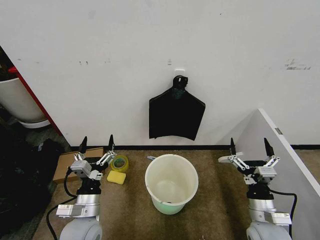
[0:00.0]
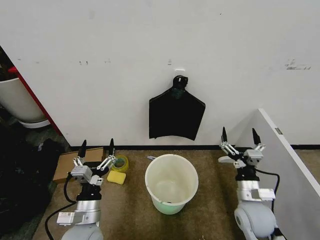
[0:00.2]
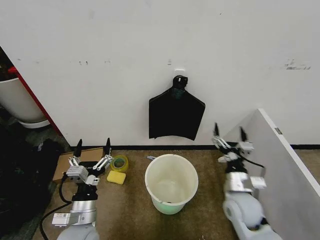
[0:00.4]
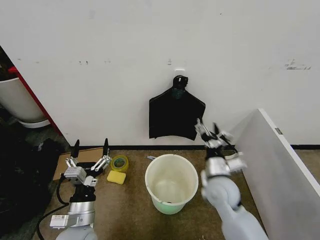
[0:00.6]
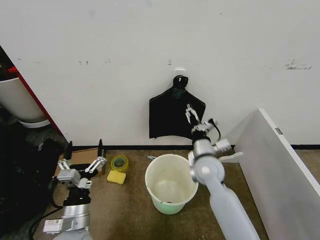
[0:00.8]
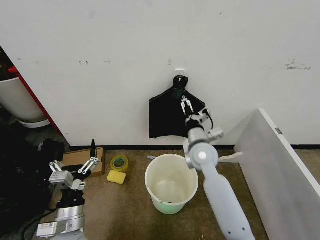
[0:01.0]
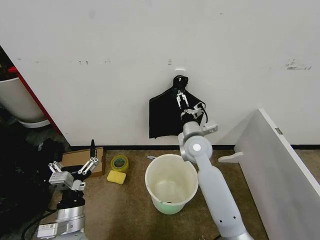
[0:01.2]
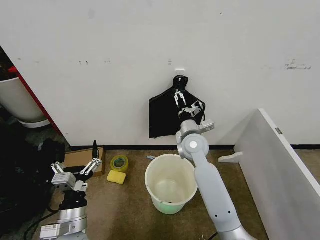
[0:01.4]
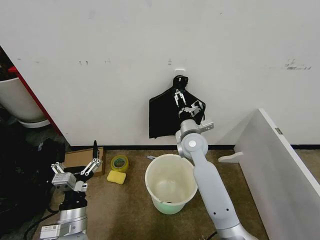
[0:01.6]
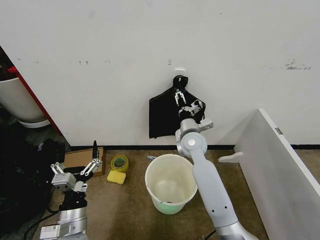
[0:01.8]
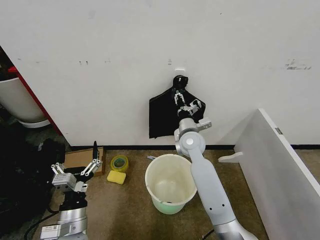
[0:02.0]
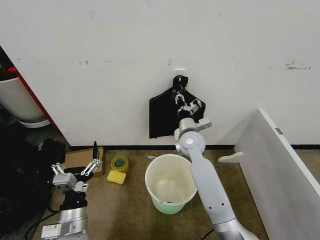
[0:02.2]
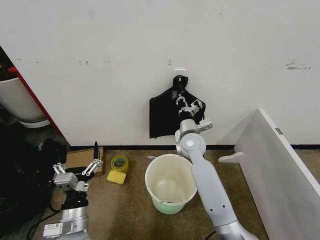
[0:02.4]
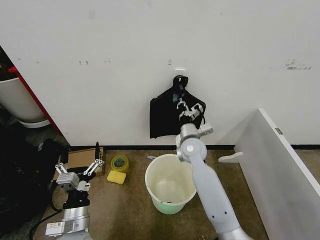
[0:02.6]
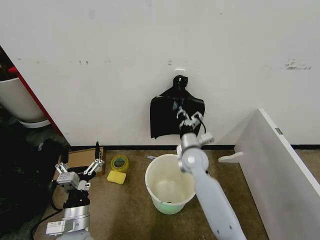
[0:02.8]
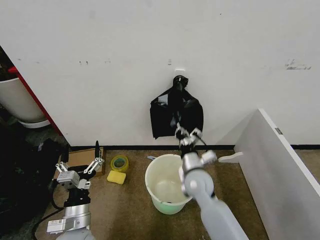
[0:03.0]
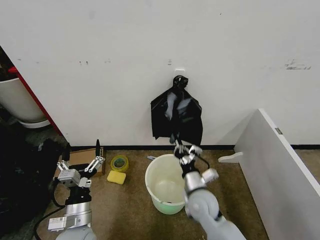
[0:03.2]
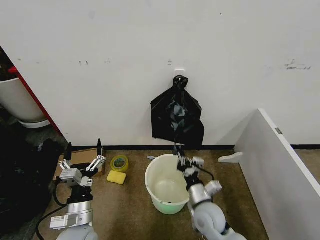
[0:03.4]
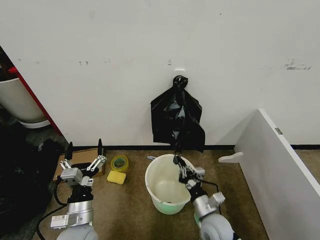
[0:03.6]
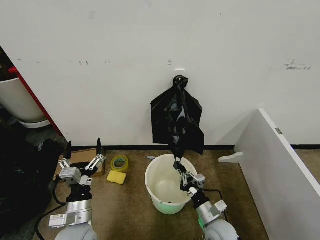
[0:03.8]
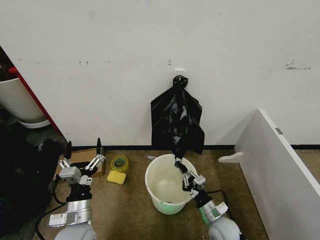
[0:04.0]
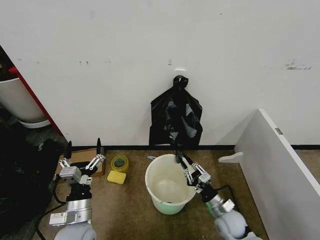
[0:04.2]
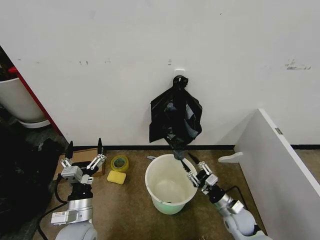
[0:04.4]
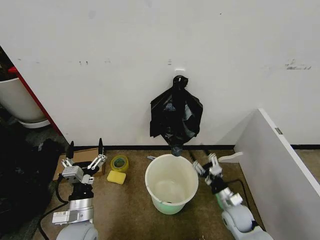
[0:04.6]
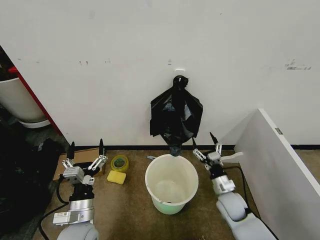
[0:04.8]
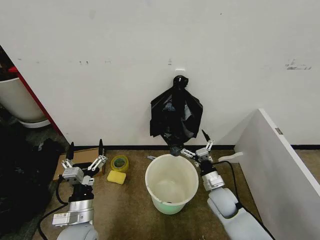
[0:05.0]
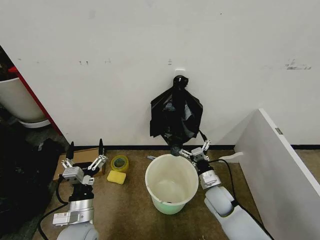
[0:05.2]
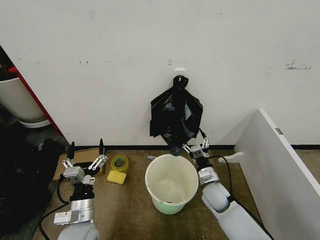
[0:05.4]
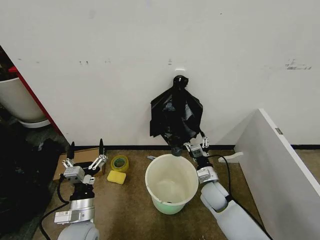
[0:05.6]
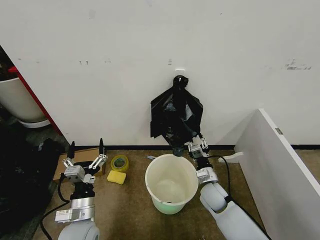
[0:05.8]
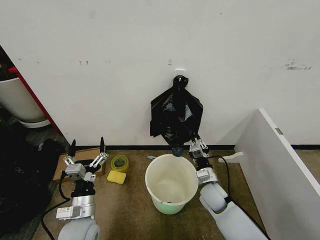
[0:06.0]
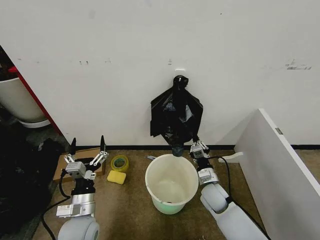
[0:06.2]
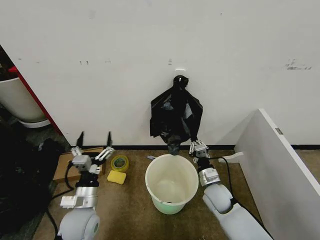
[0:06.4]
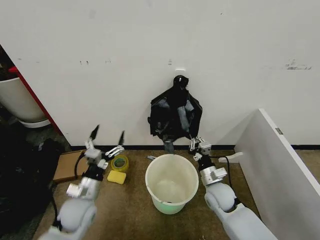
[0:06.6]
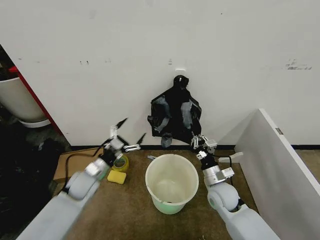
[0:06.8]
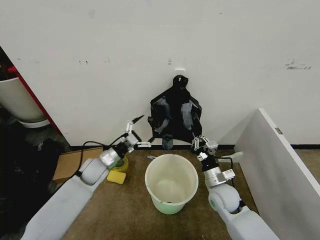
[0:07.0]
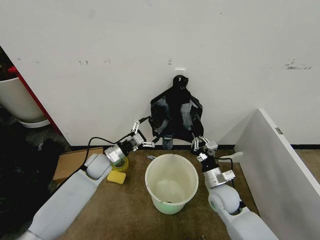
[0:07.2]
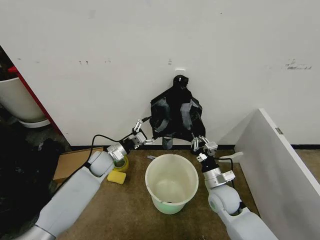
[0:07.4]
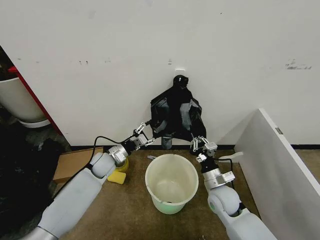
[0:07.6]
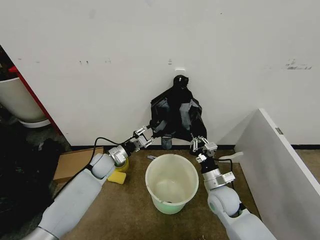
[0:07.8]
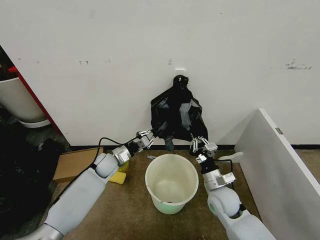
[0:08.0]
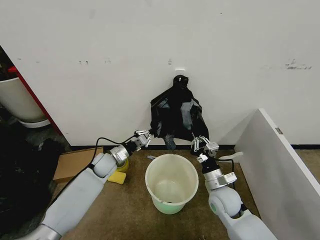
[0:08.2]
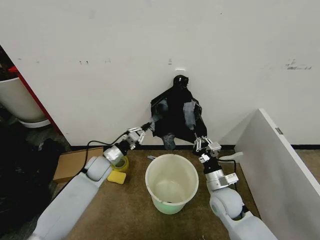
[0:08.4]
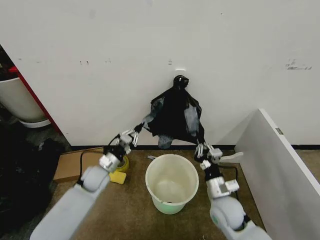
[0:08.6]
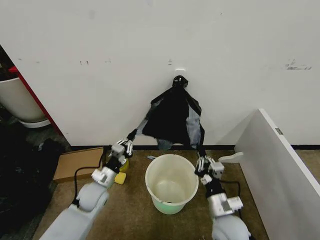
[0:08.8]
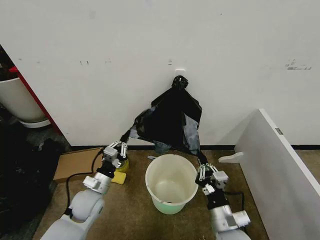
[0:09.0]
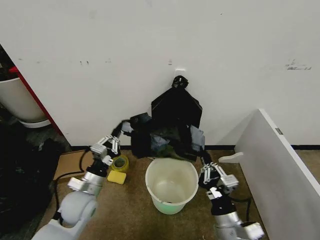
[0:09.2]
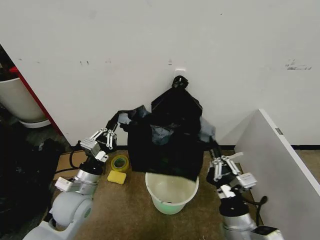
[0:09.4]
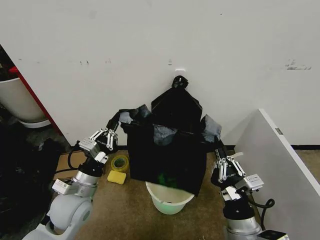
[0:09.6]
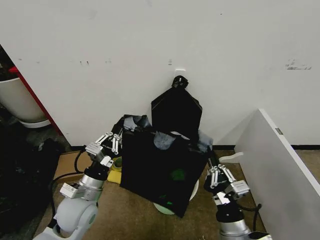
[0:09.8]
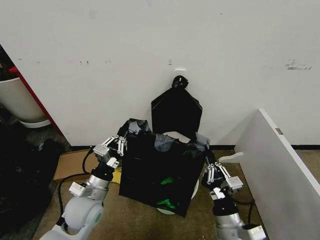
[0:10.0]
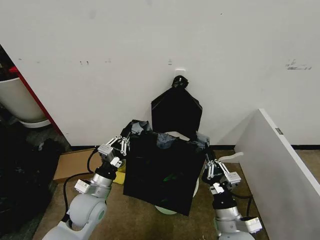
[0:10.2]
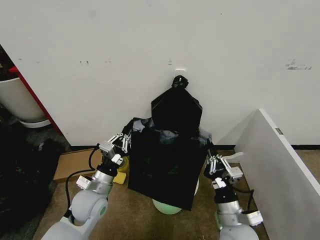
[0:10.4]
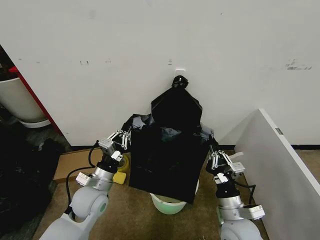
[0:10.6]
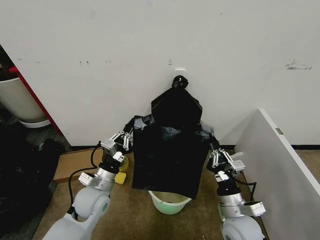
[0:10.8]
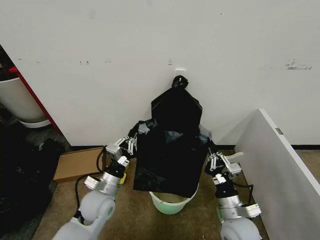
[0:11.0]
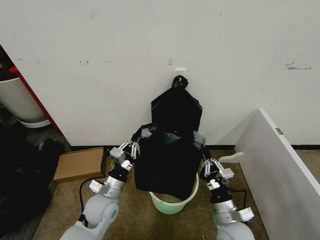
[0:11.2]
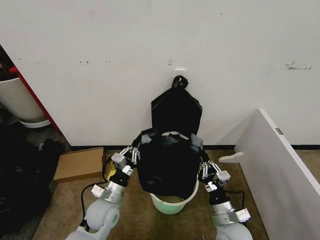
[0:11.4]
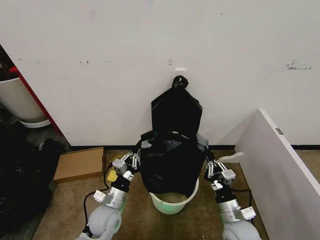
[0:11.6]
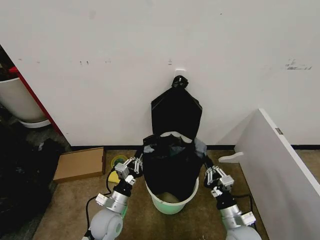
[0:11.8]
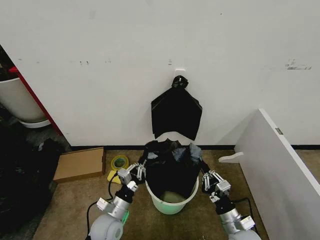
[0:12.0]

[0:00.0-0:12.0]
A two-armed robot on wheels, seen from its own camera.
Task of the whole recording: Place the garbage bag over the trash bin.
0:01.6 to 0:03.0: The right gripper shifts roughly 15 cm backward and downward, and closes its fingers.
0:03.0 to 0:04.4: The right gripper is displaced to the right, downward and backward by roughly 20 cm, and opens.
0:04.4 to 0:06.0: The right gripper shifts some 10 cm to the left and forward, and opens, then closes again.
0:06.0 to 0:07.6: The left gripper goes some 25 cm forward, and closes its fingers, while the right gripper shifts by some 5 cm.
0:07.6 to 0:09.0: The two grippers go some 15 cm backward. The left gripper closes.
0:09.0 to 0:10.4: The left gripper shifts approximately 5 cm upward. The right gripper travels upward and back again, roughly 10 cm each way.
0:10.4 to 0:12.0: The right gripper goes about 10 cm downward and to the right, while the left gripper shifts roughly 10 cm downward.

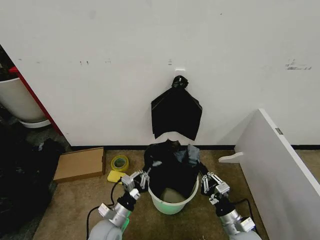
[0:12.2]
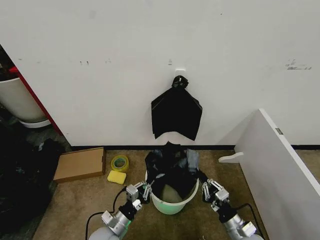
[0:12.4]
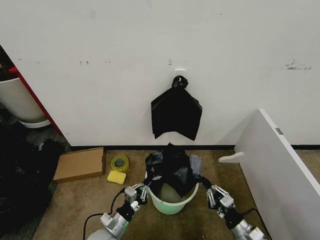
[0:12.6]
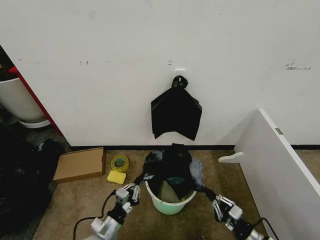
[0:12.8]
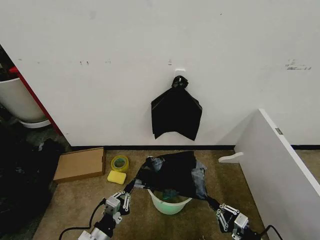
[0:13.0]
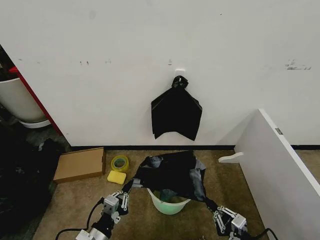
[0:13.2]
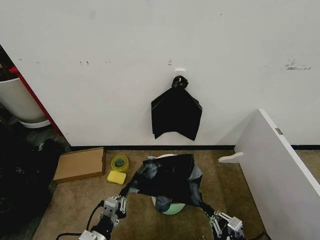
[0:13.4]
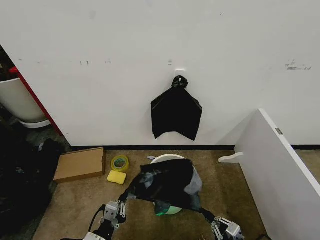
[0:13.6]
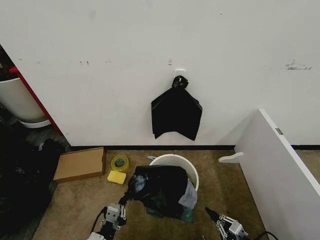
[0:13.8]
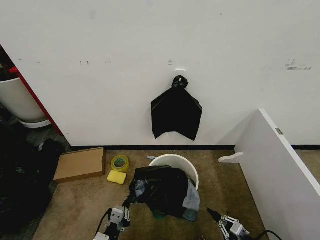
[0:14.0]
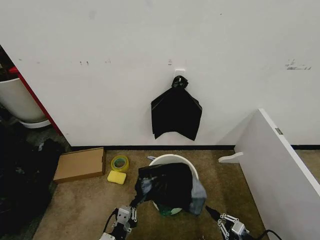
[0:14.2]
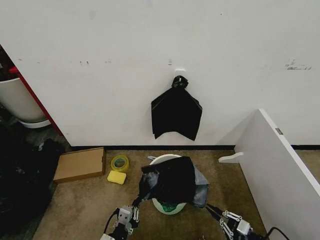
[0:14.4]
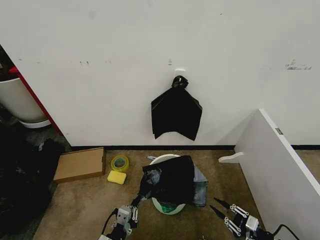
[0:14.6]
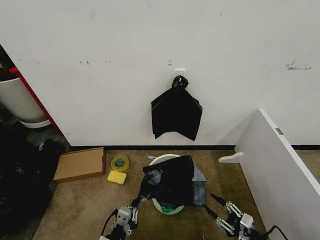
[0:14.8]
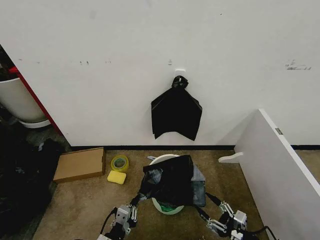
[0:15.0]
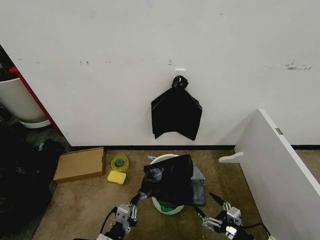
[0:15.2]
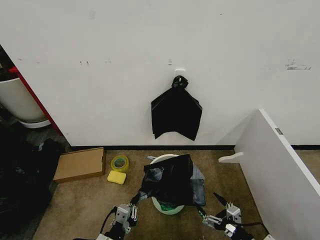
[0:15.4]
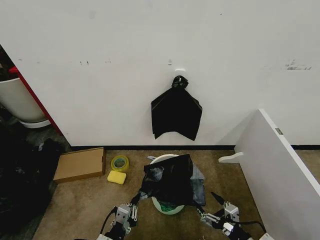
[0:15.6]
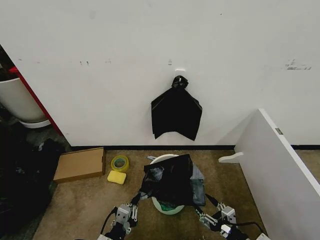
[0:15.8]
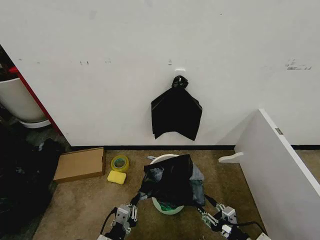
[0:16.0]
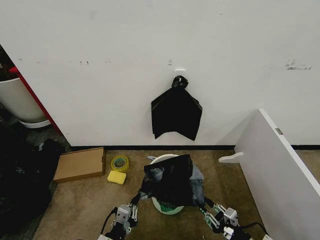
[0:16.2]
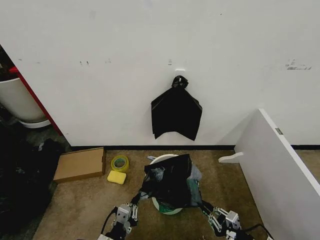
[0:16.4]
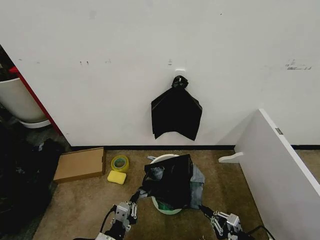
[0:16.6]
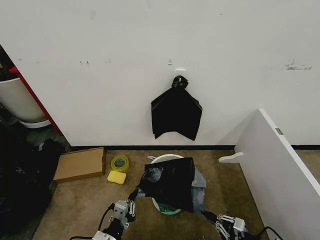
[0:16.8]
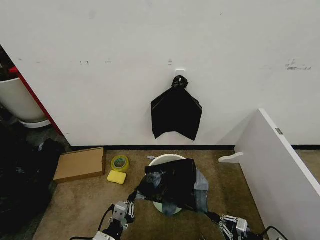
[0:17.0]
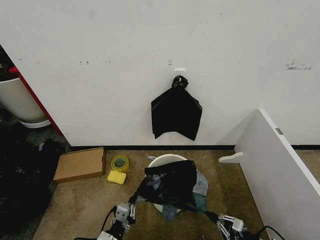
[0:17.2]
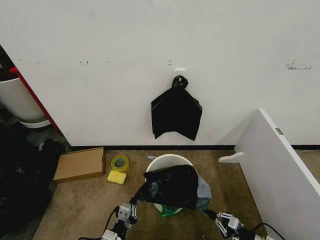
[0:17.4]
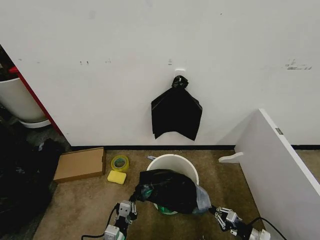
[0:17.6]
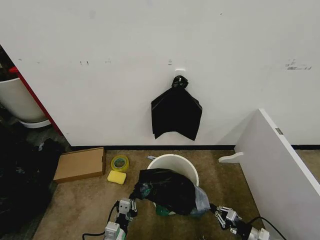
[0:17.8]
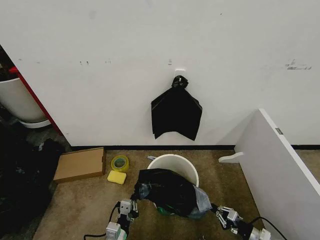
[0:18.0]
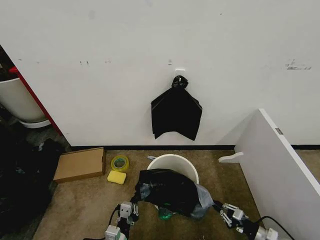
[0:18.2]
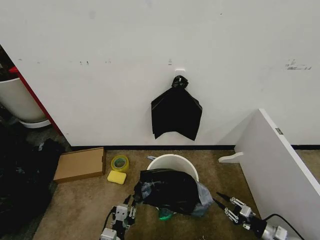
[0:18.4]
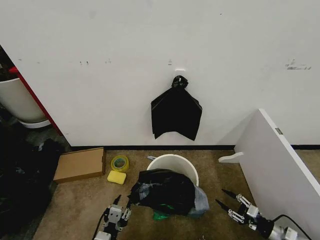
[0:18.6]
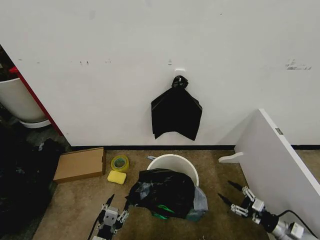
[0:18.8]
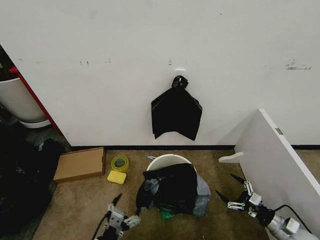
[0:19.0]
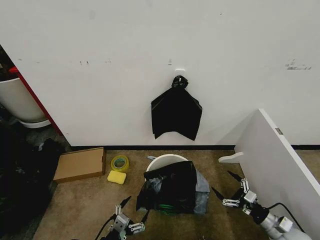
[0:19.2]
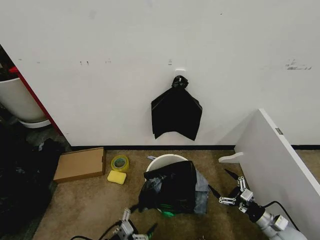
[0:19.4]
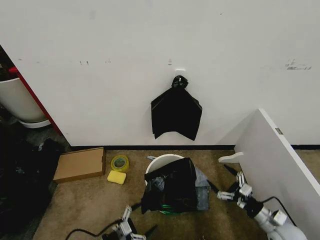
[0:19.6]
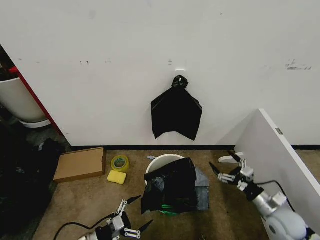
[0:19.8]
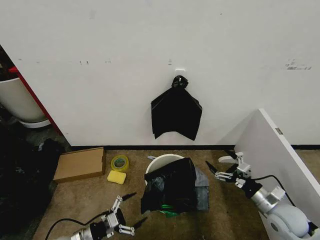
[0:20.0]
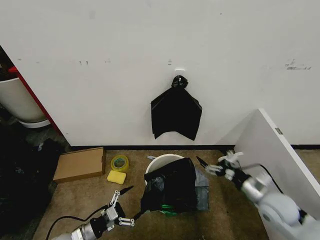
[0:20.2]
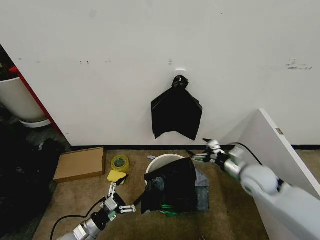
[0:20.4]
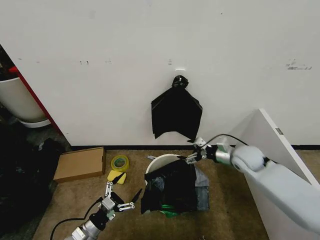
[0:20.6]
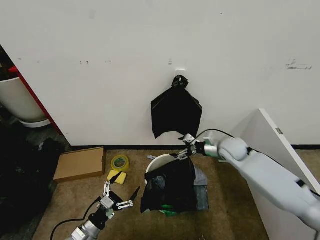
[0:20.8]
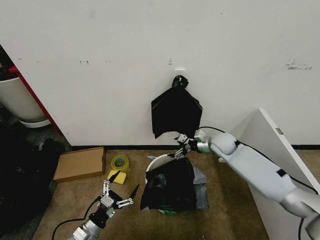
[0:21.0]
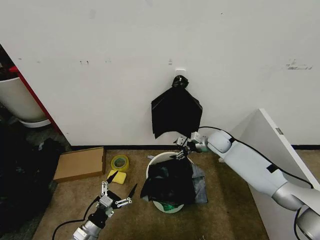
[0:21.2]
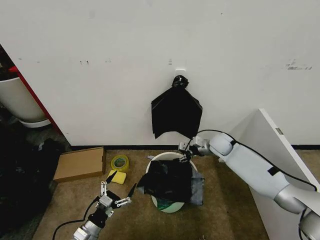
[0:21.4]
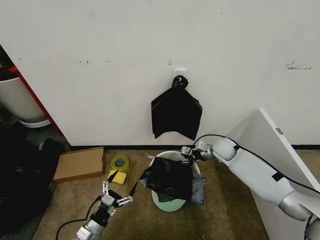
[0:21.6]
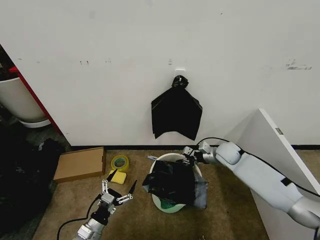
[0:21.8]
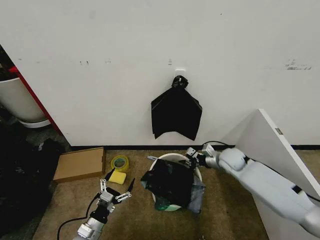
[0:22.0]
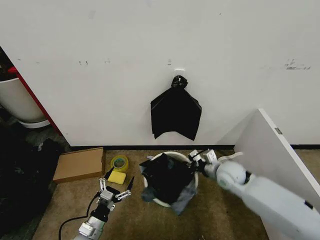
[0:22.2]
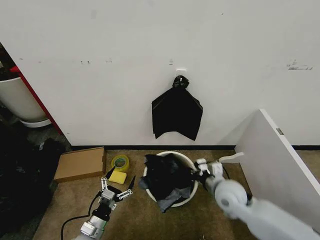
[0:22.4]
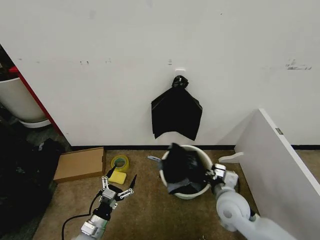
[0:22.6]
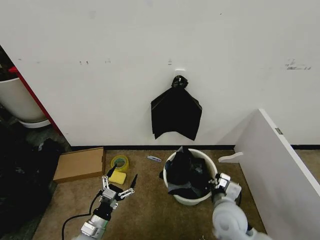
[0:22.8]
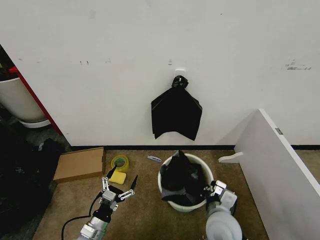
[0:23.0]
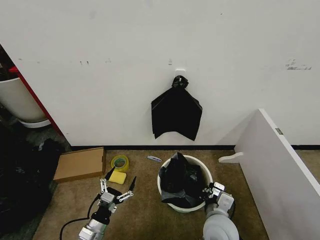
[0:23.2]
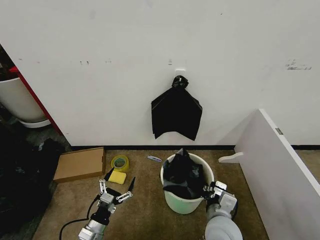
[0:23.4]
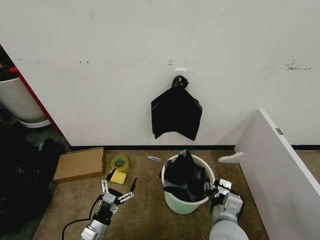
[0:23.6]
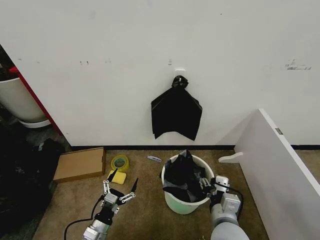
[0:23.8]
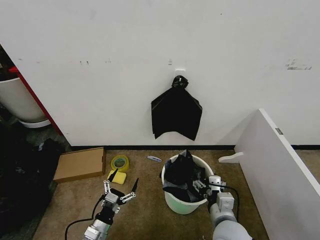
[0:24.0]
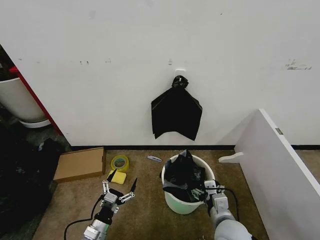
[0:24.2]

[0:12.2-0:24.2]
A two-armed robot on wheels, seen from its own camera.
Task of the whole recording: Place the garbage bag over the trash bin.
0:12.2 to 0:13.8: The left gripper moves backward, some 10 cm. The right gripper is displaced to the right and backward by roughly 15 cm.
0:13.8 to 0:15.2: The right gripper shifts about 5 cm upward, and opens.
0:15.2 to 0:16.6: The right gripper moves roughly 5 cm, and closes.
0:16.6 to 0:18.2: The left gripper changes place by roughly 5 cm. Meanwhile the right gripper goes roughly 10 cm to the right, downward and forward.
0:18.2 to 0:19.8: The right gripper shifts roughly 15 cm upward and forward, and opens. Meanwhile the left gripper moves to the left, about 15 cm, and opens.
0:19.8 to 0:21.2: The right gripper travels forward and to the left by some 30 cm.
0:21.2 to 0:22.6: The right gripper moves backward, some 25 cm, and closes up.
0:22.6 to 0:24.2: The right gripper goes about 10 cm backward, and opens its fingers.
